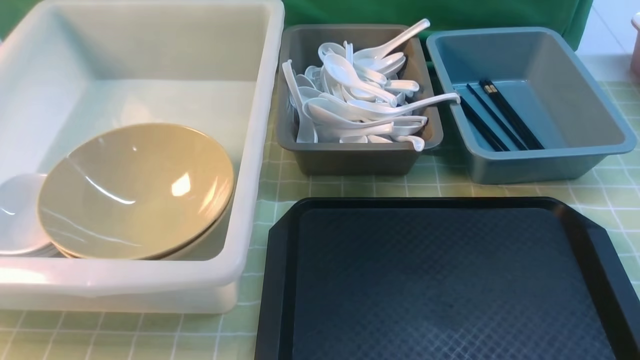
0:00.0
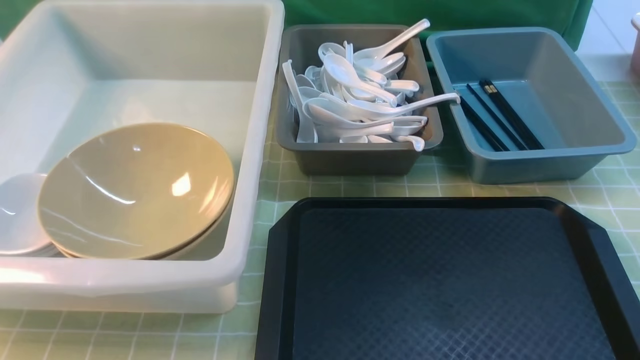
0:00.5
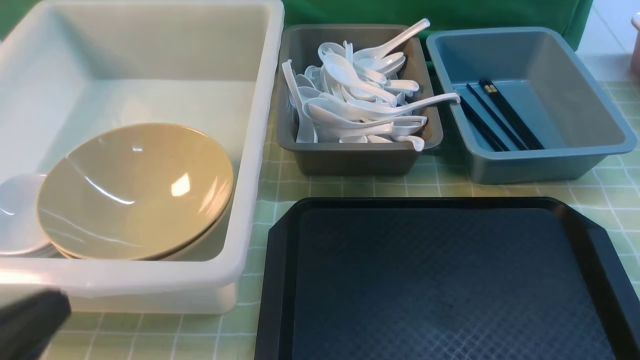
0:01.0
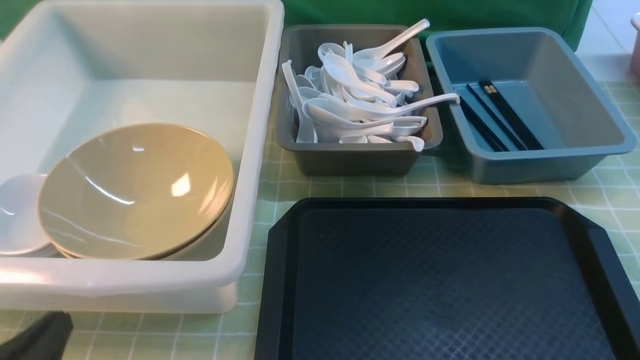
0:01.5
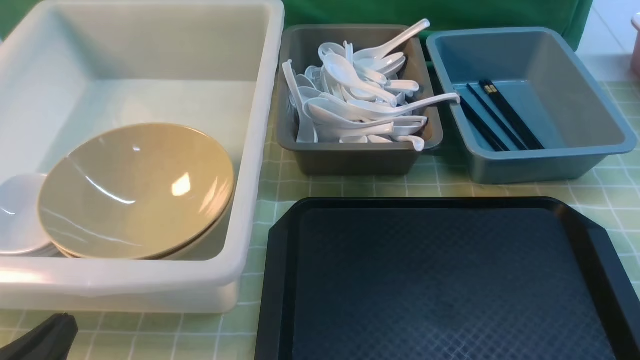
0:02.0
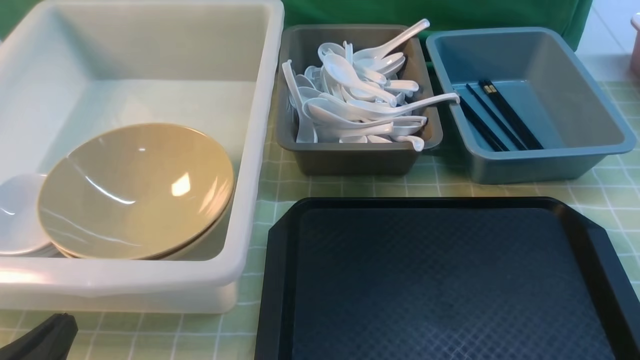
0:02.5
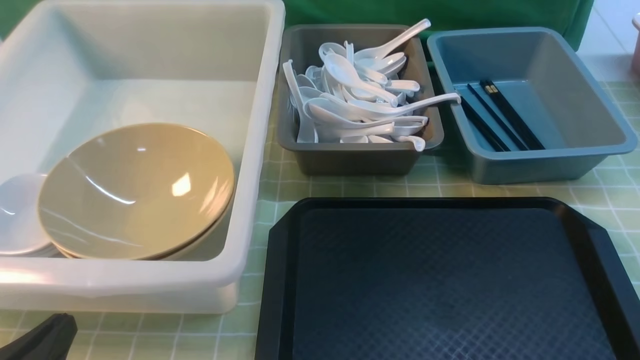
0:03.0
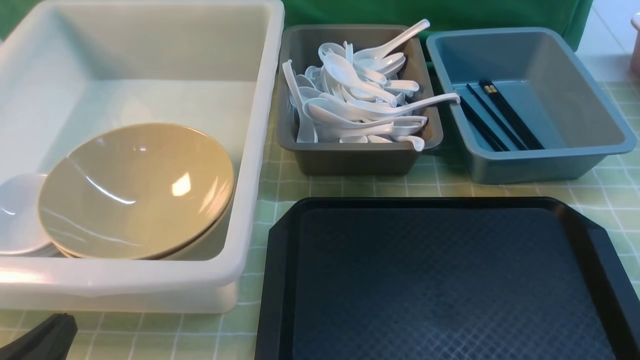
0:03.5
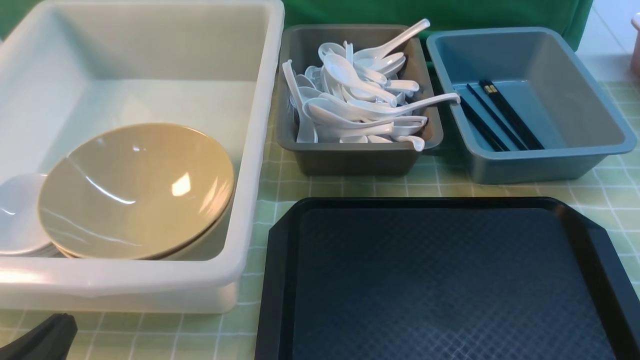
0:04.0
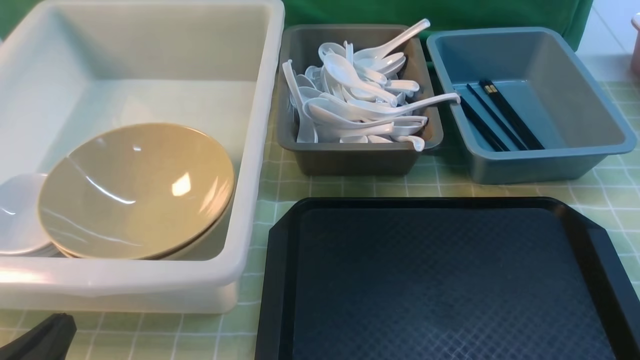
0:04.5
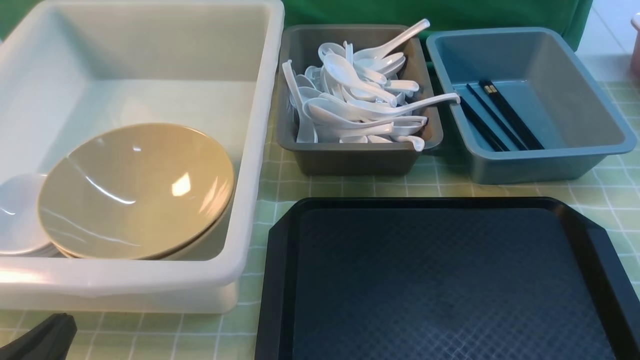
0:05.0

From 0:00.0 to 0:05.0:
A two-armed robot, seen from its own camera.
Task of the whole recording: on green table put chopsticks spoon bowls plates into blue grey white boxes.
From 0:00.0 to 0:02.5: The left gripper travels downward by approximately 15 cm.

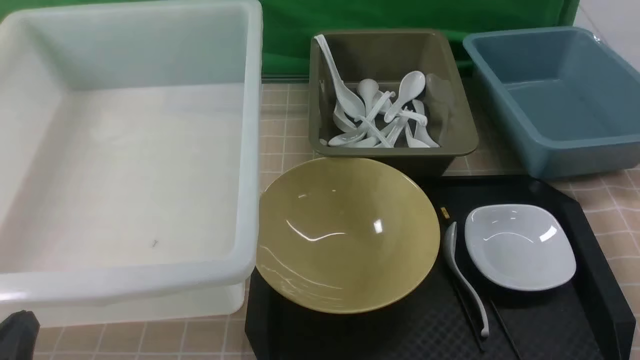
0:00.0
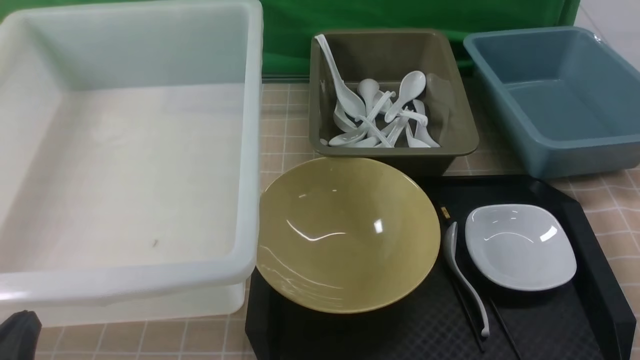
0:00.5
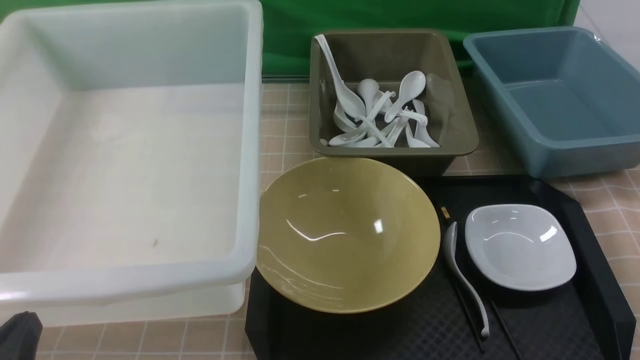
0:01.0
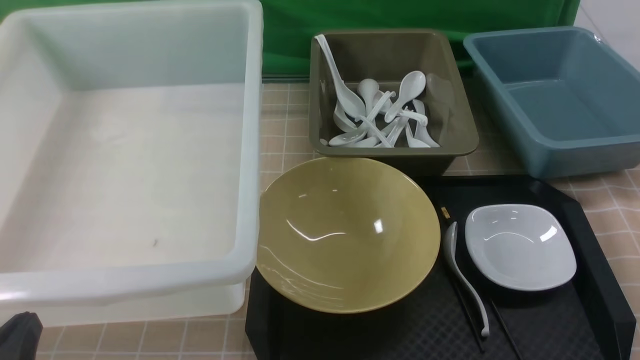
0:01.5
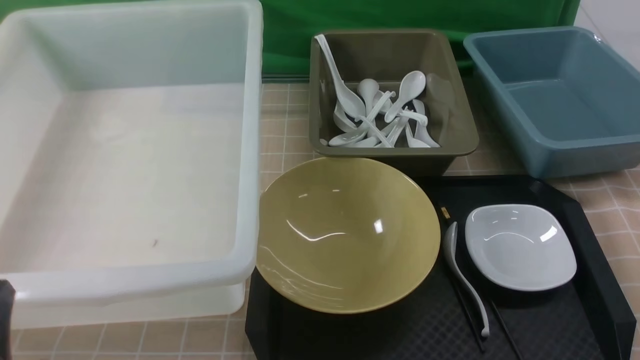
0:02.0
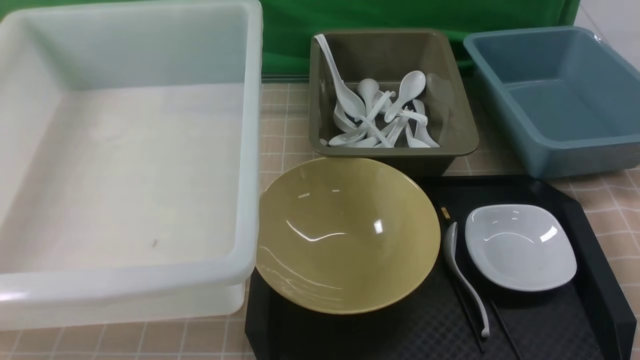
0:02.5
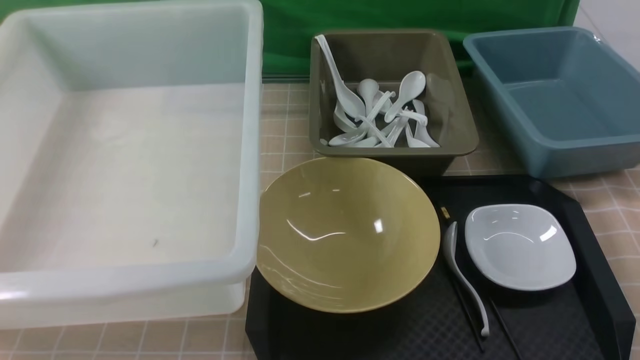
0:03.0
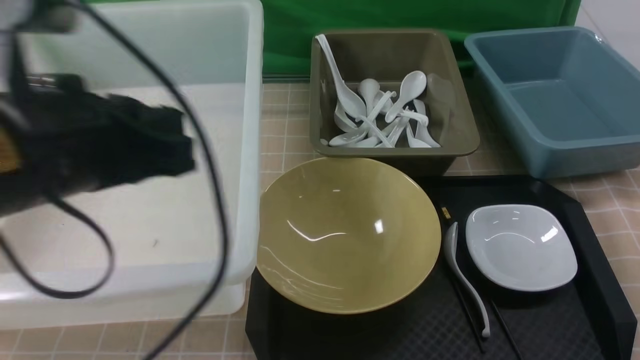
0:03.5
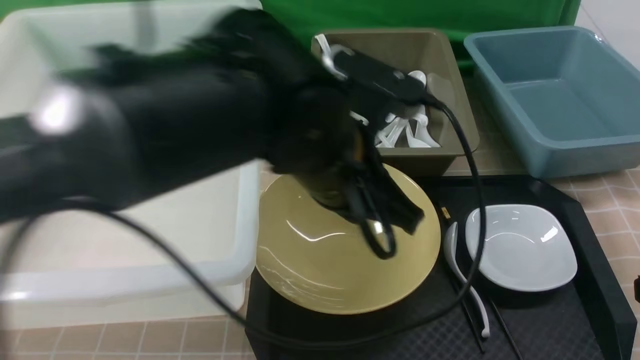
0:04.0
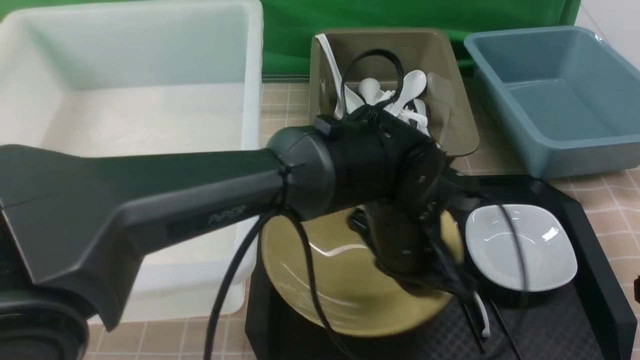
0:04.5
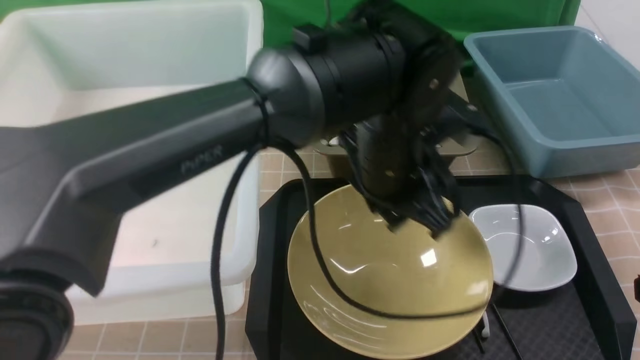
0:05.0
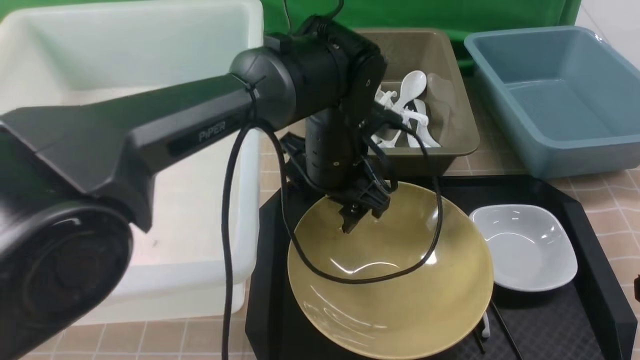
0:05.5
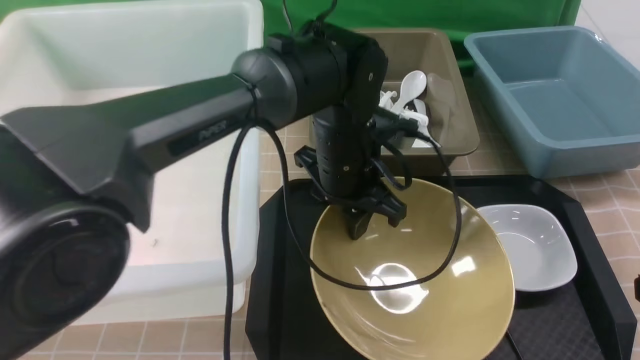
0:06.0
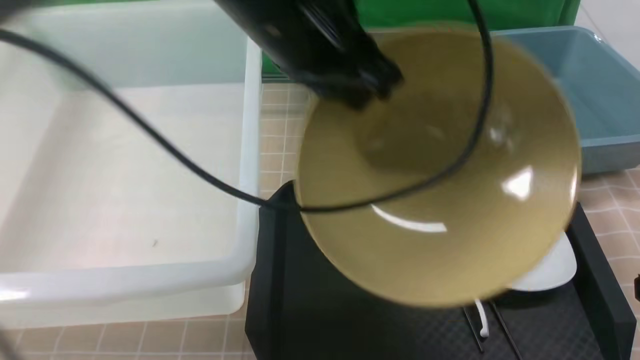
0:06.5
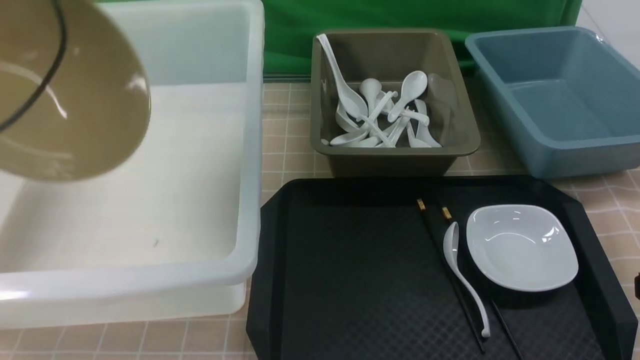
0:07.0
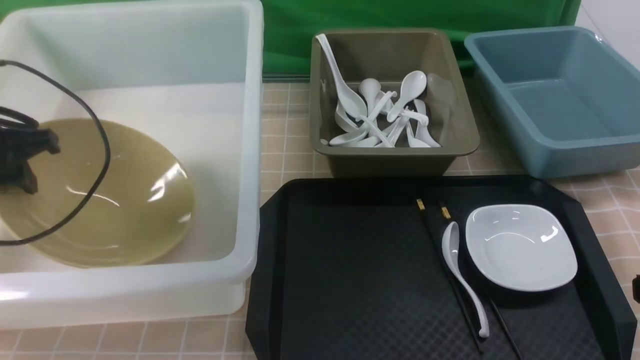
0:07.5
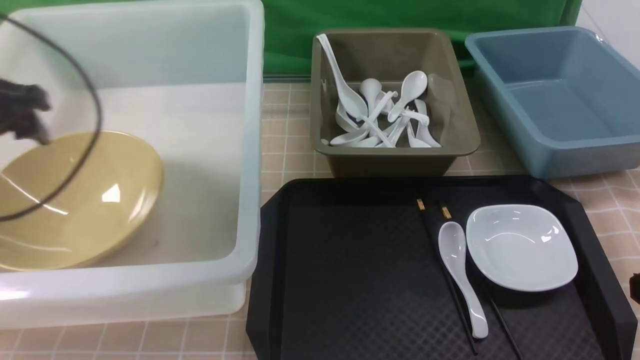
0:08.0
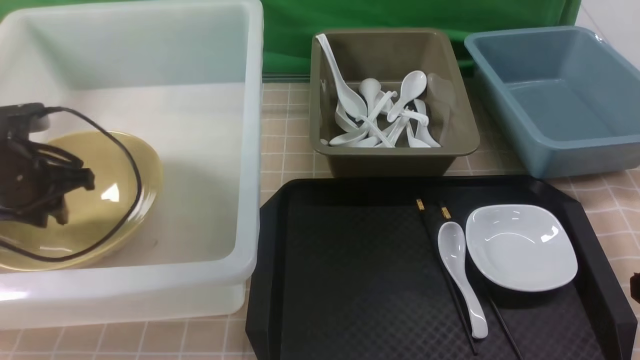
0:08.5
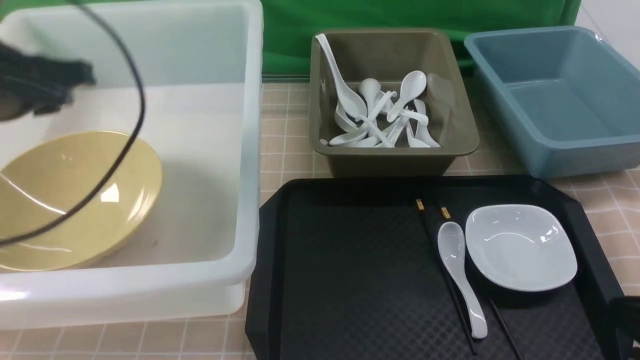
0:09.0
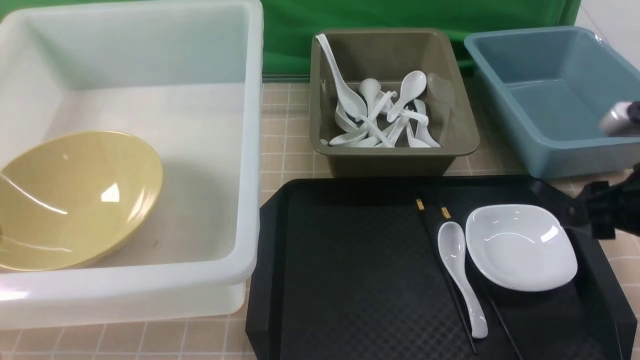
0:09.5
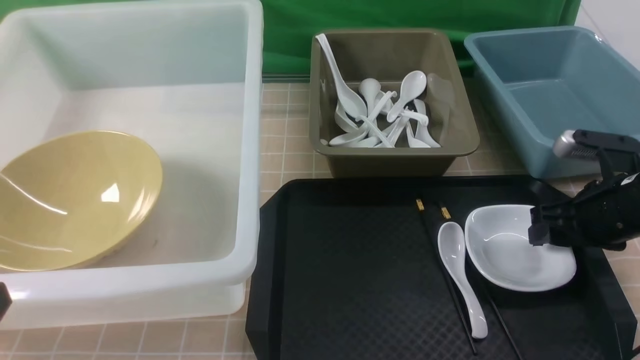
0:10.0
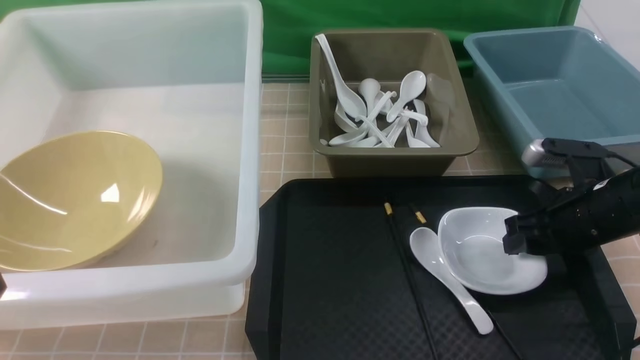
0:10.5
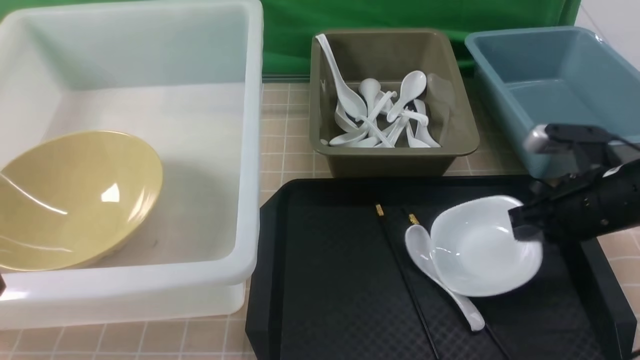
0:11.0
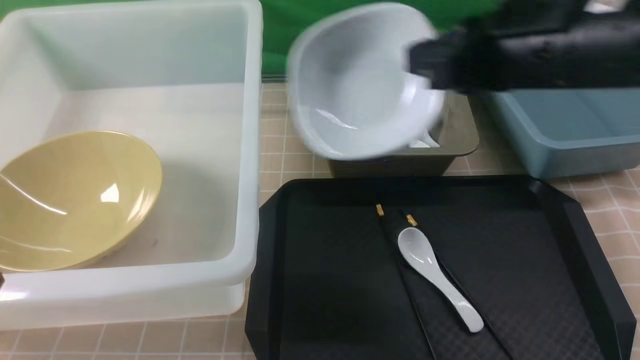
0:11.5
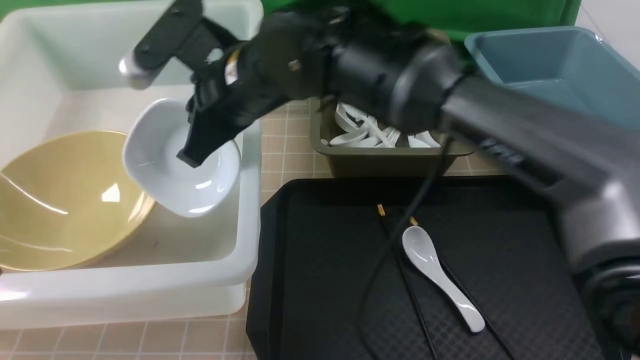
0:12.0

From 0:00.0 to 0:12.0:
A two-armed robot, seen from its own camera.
Task of the whole recording: on brown table put chopsticks spoon bowls plates into blue grey white boxes.
Step, from 0:00.0 to 0:05.5: use the left arm to grab the yellow noodle bowl on the left.
Step, from 0:06.0 to 0:07.5: use the left arm to put the noodle bowl into the large storage box on the left.
Step, from 0:08.0 to 0:11.0: use the right arm to grab the plate.
From 0:02.0 to 0:04.0: The left gripper moves to the right and forward, approximately 35 cm. The right gripper travels upward by some 5 cm.
From 0:04.0 to 0:06.0: The left gripper heads forward and downward, covering approximately 10 cm, and opens and closes again.
From 0:06.0 to 0:08.0: The left gripper travels to the left by approximately 35 cm, and opens.
From 0:08.0 to 0:10.0: The right gripper goes some 20 cm forward, and opens up, while the left gripper moves backward, about 30 cm, and closes.
From 0:10.0 to 0:12.0: The right gripper is displaced to the left by approximately 35 cm, and closes its fingers.

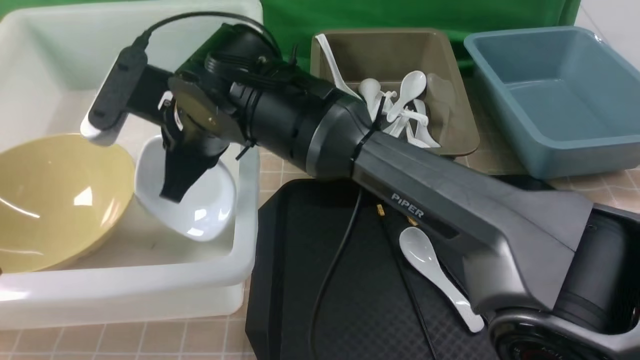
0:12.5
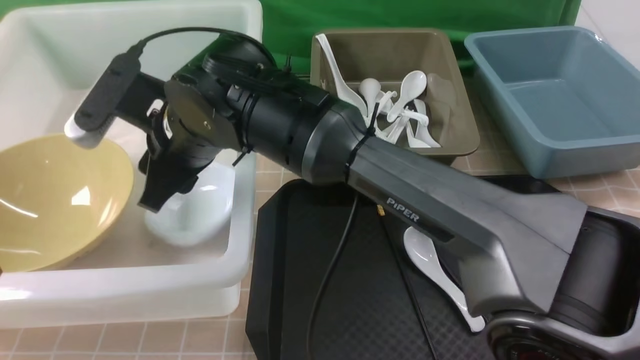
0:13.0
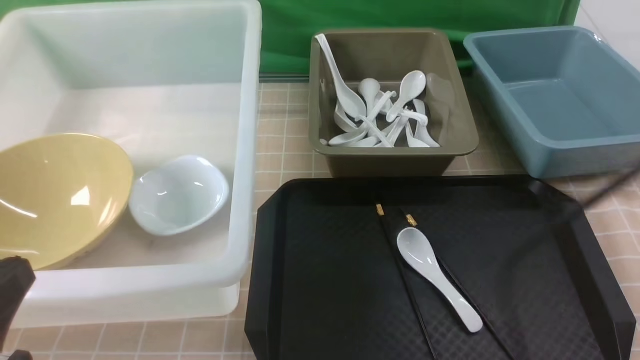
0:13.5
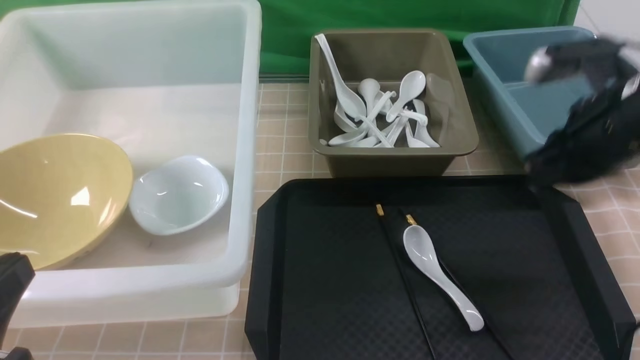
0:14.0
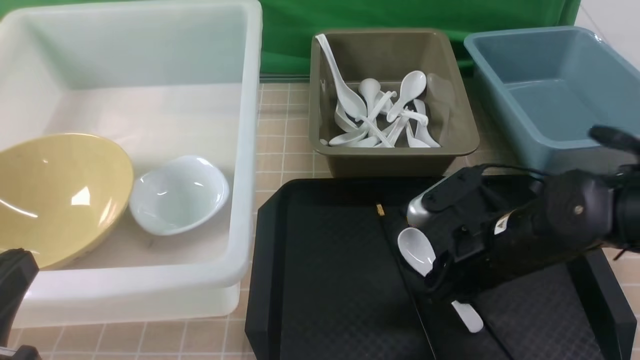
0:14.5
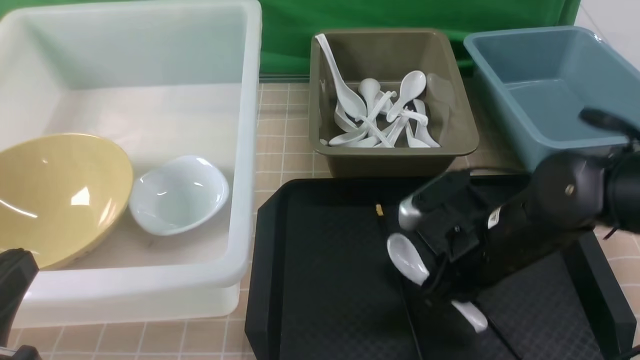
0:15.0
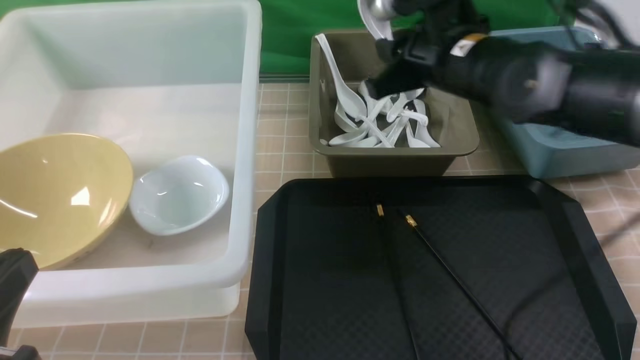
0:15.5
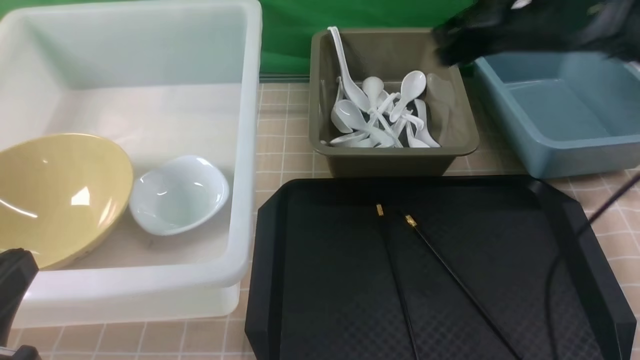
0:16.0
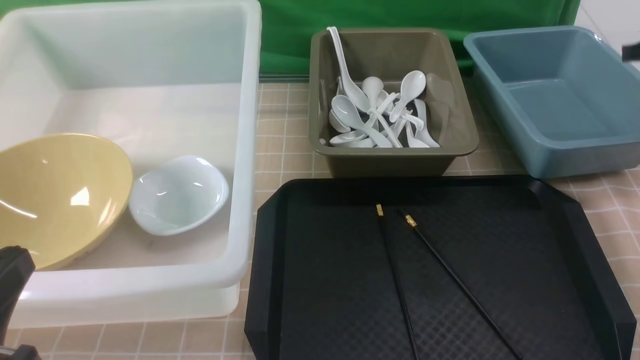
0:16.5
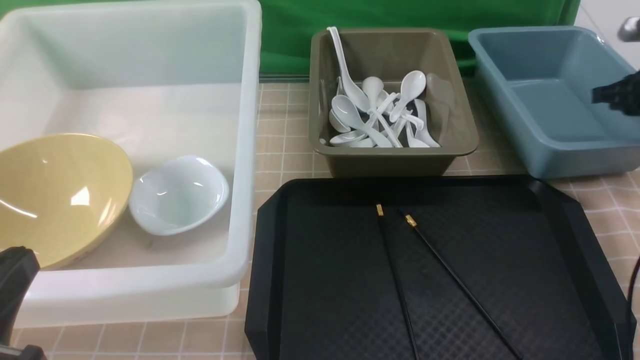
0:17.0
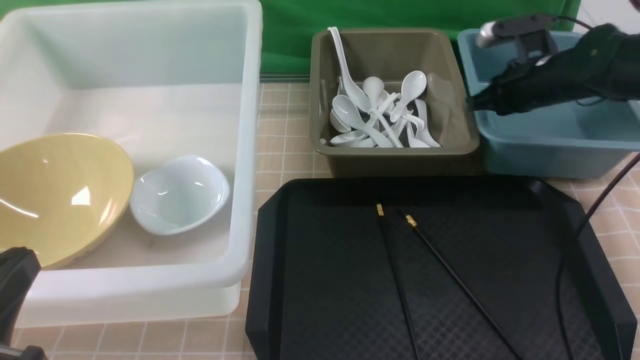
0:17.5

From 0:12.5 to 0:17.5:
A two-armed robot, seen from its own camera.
Task of the whole recording: on brown table put chopsticks spoon bowls plates into blue grey white boxes.
Step, from 0:13.5 to 0:15.0: use the right arm to grab the soup spoon in the middle.
Step, from 0:15.5 to 0:16.0: use the right arm to put the soup spoon into the small storage box in the middle.
From 0:12.5 to 0:15.0: The right gripper is displaced to the right by about 25 cm, and opens and closes again.
From 0:15.0 to 0:17.5: The right gripper moves forward and to the right, some 20 cm, and closes its fingers.
